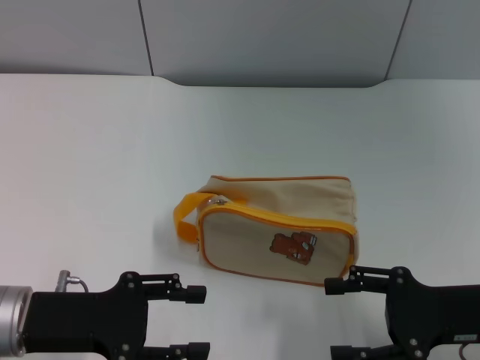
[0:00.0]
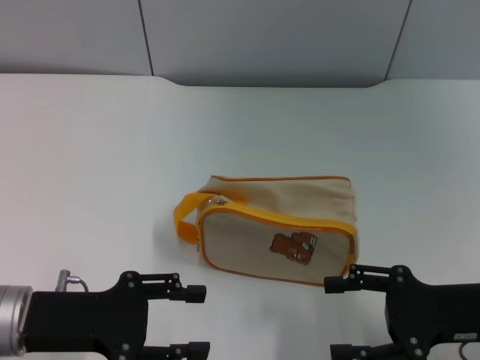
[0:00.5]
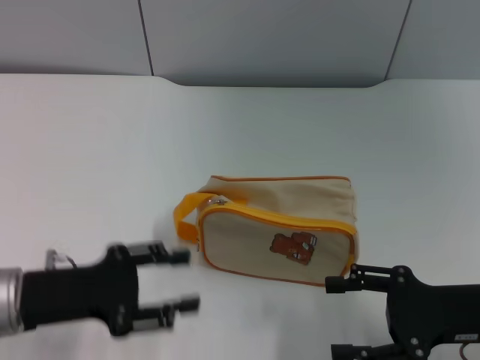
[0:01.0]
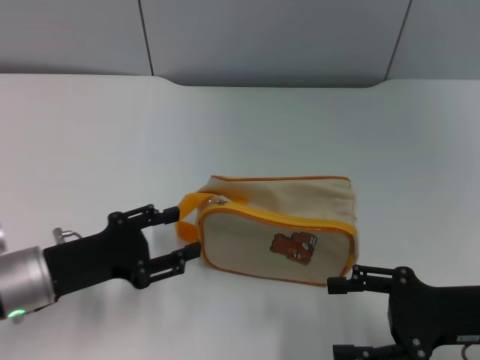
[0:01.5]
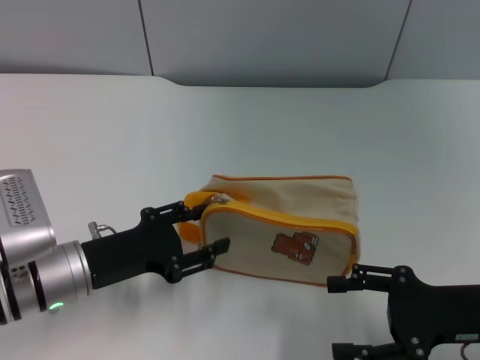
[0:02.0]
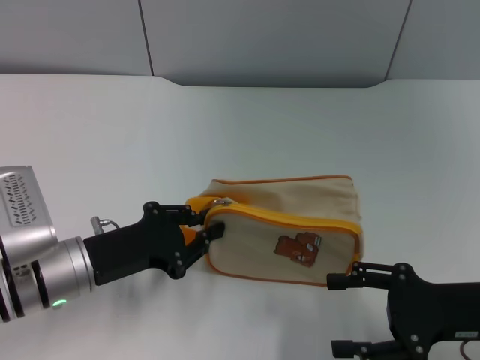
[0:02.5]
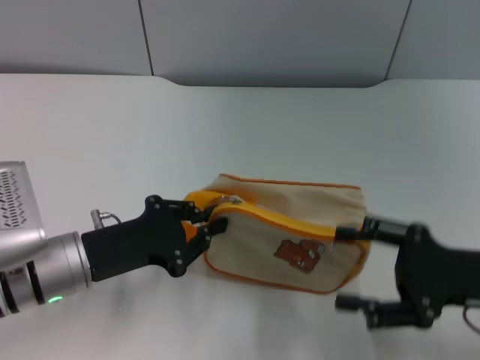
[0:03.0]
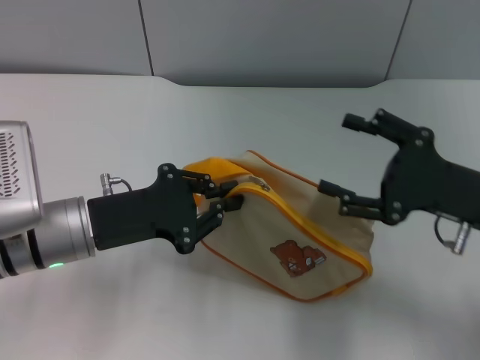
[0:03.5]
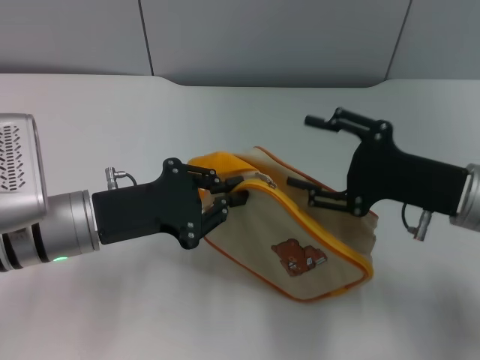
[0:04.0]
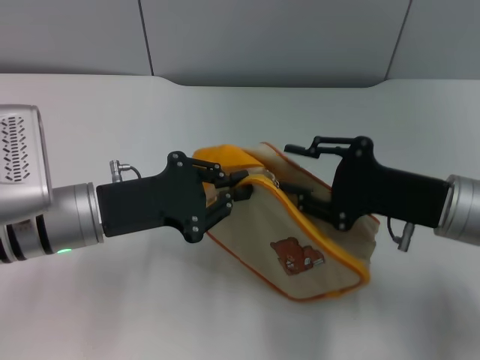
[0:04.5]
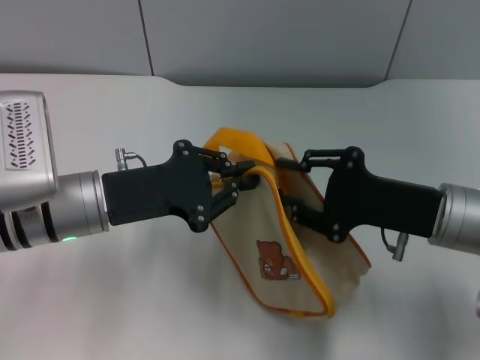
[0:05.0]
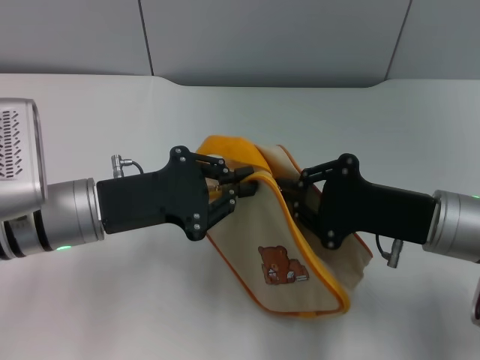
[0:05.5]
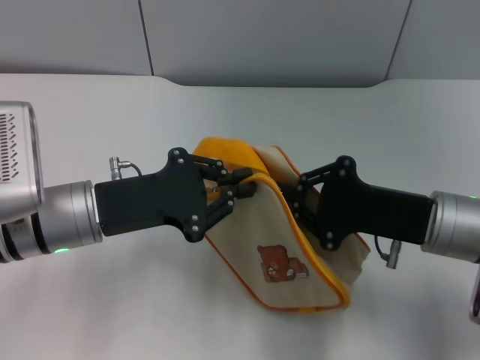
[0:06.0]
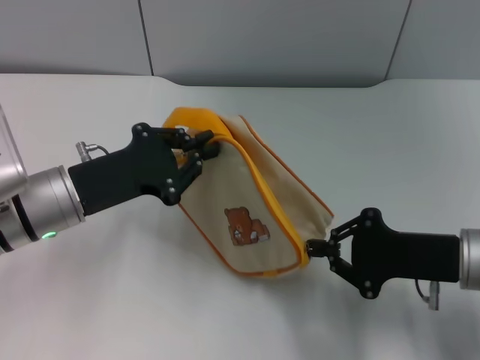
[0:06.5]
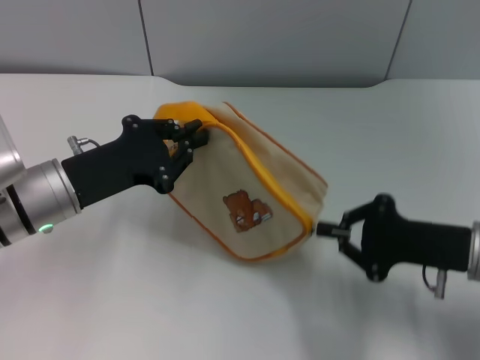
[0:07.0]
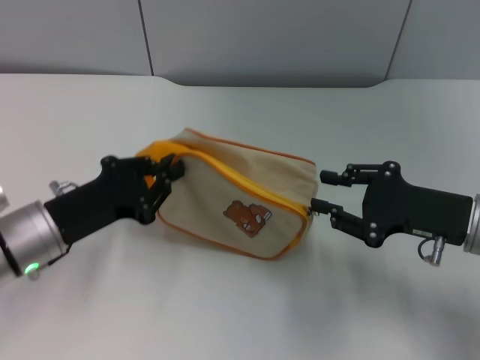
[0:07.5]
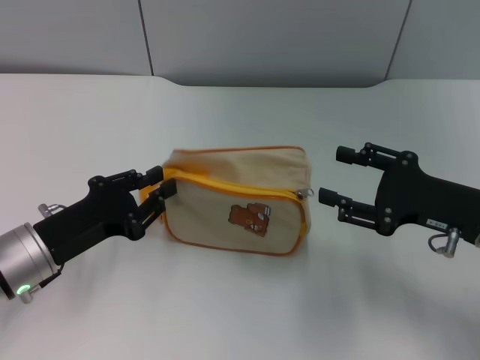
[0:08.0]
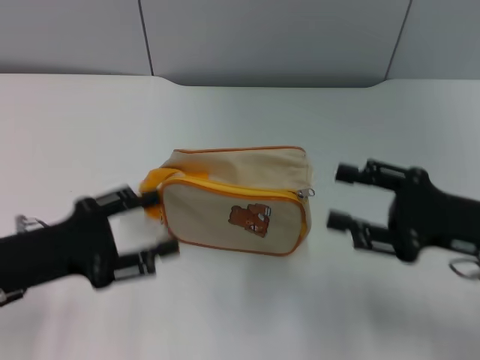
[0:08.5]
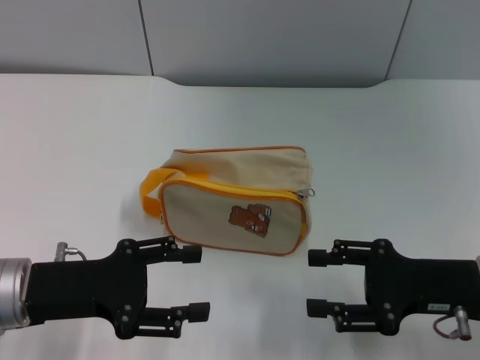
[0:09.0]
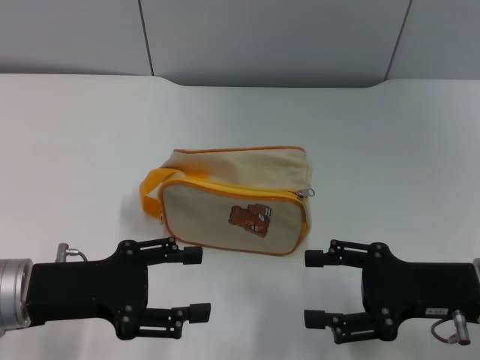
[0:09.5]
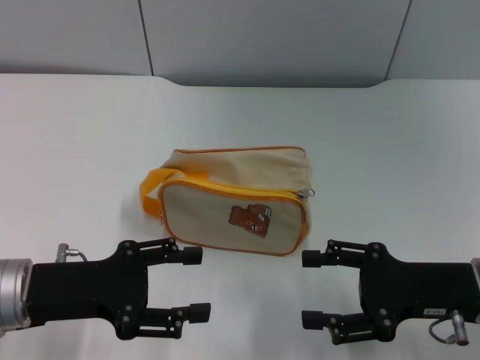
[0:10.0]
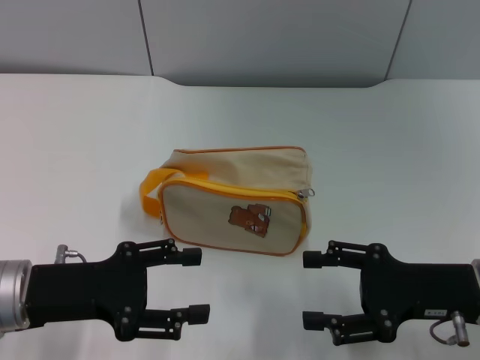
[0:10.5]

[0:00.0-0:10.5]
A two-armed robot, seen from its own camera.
Step, 0:00.0 to 0:03.5: Pick up the bag with left gripper.
Step, 0:04.0 to 0:07.5: Unzip the zipper of bag with right gripper.
Step, 0:08.0 to 0:08.5: Place the bag on the table with left gripper.
0:00.0 to 0:02.0: The left gripper shifts by about 5 cm.
0:02.0 to 0:04.0: The left gripper changes place by roughly 5 cm, and closes up. The right gripper goes approximately 5 cm forward.
0:04.0 to 0:06.5: The right gripper closes its fingers.
0:06.5 to 0:08.5: The left gripper moves backward and to the left, some 10 cm, and opens up, while the right gripper opens its fingers.

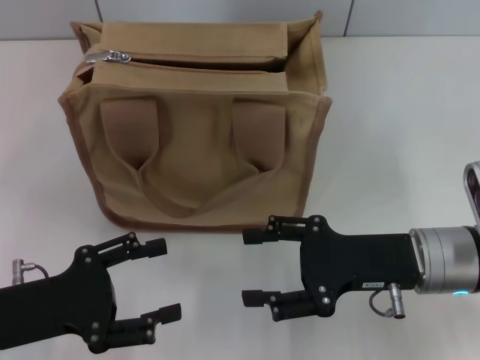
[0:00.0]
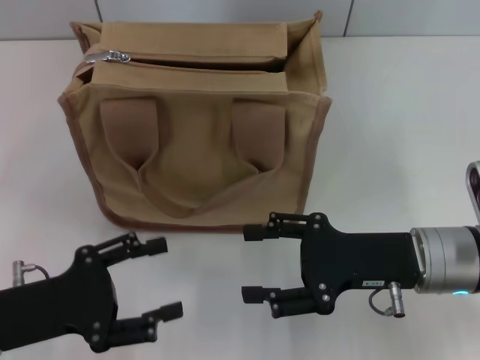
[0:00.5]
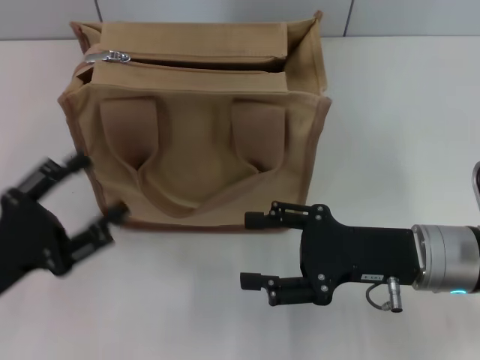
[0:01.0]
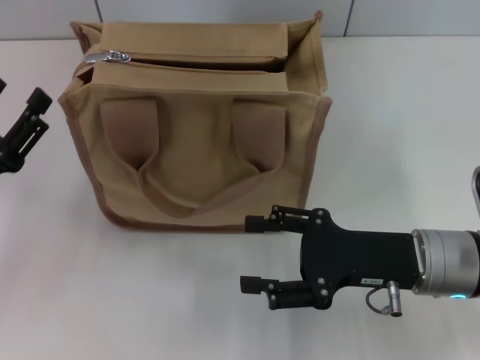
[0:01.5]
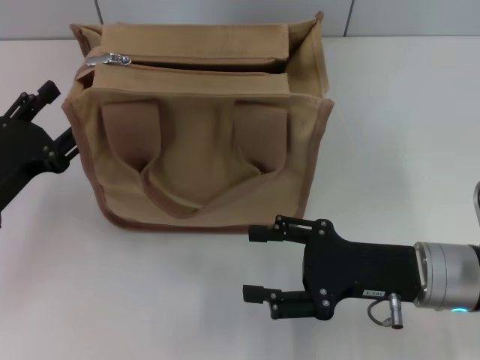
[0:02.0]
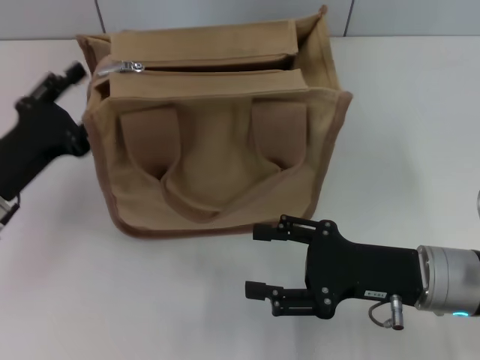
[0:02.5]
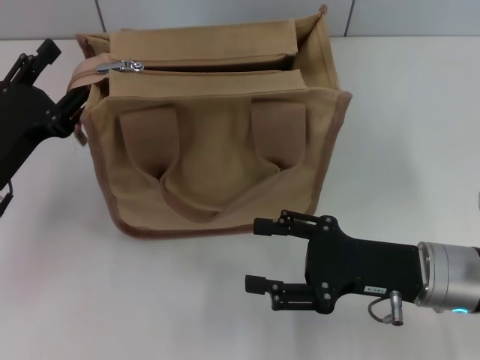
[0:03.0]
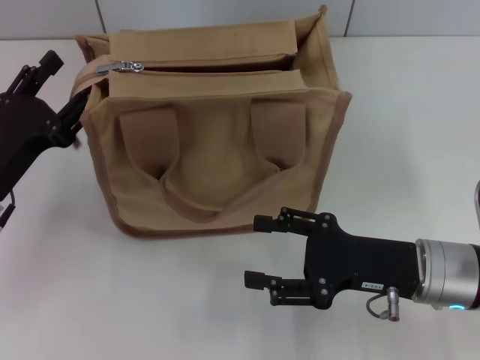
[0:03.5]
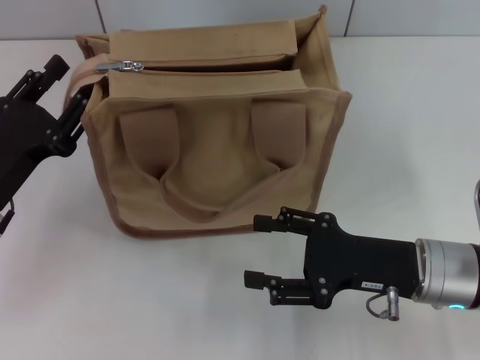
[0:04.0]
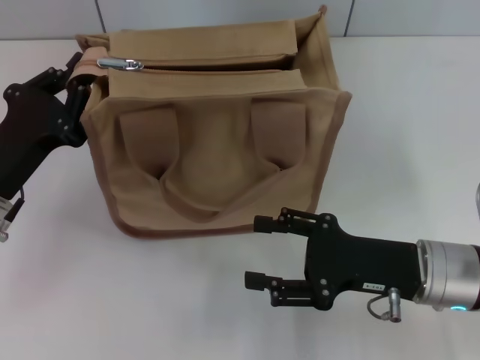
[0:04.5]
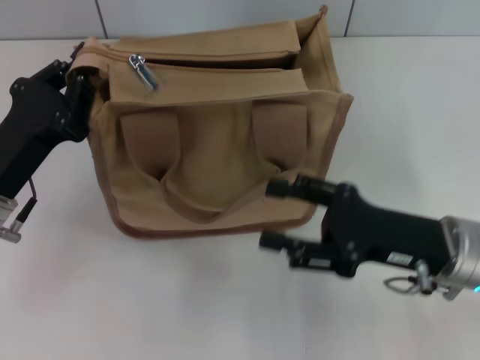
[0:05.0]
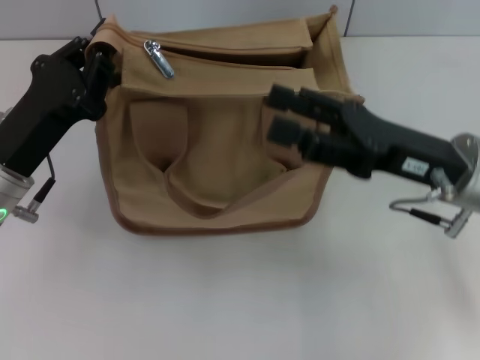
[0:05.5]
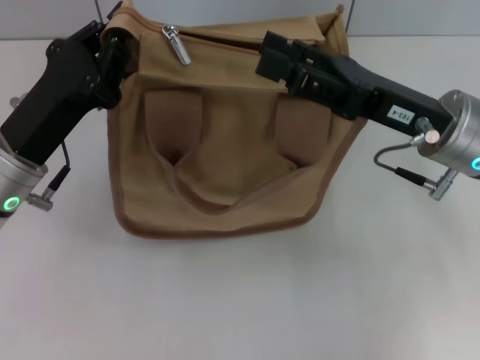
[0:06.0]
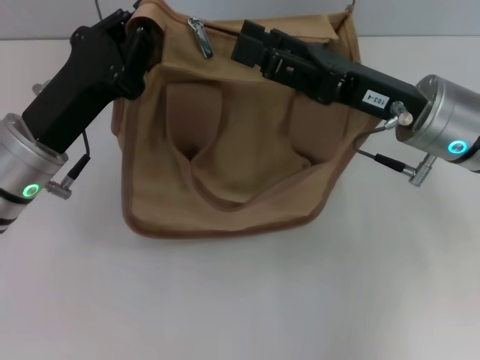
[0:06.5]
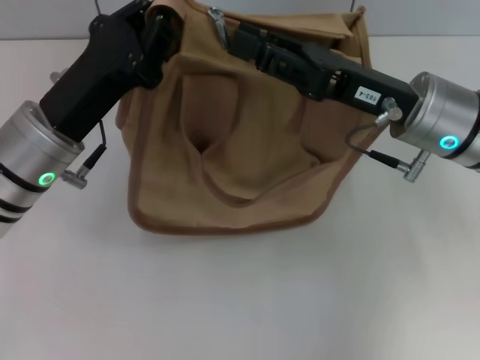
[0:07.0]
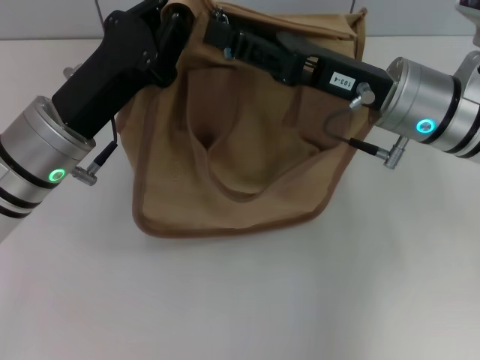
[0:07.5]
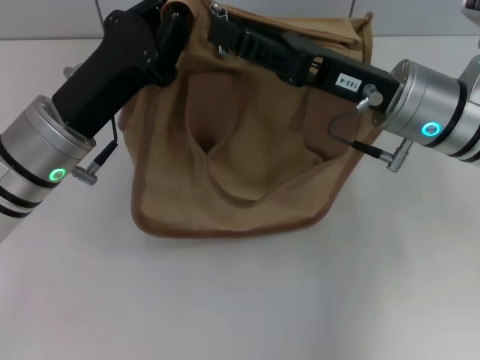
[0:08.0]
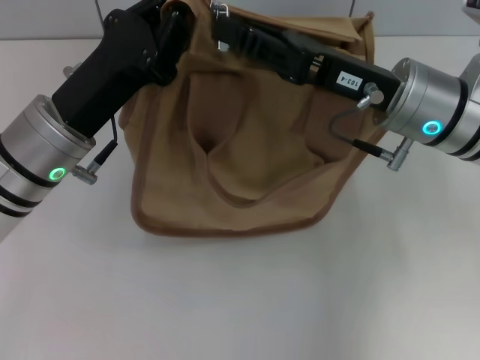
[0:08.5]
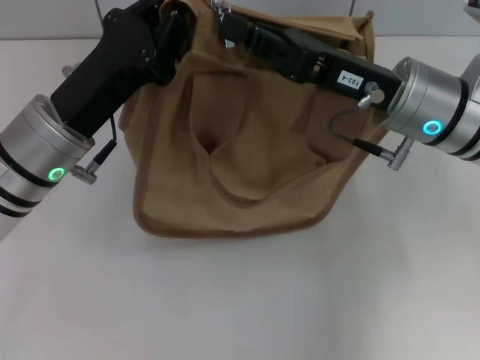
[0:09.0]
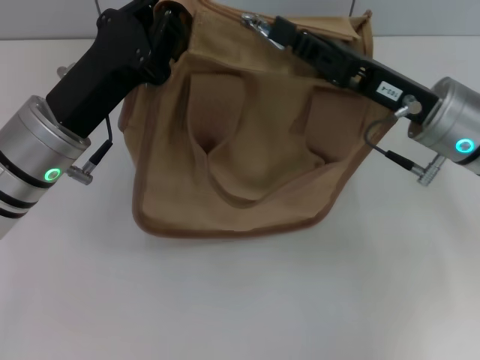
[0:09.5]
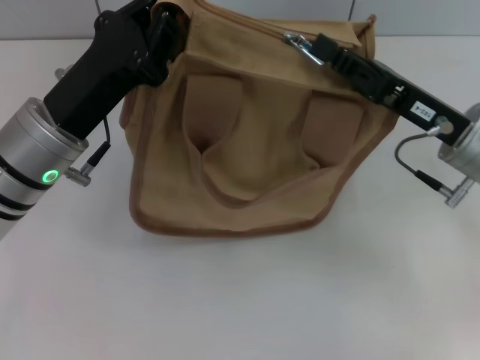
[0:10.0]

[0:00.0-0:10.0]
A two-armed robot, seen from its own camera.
0:00.0 to 0:02.0: The left gripper travels forward by about 5 cm.
0:02.0 to 0:04.0: The grippers move only a little.
0:04.0 to 0:06.0: The right gripper goes about 10 cm upward and forward. The left gripper shifts by roughly 5 cm, and closes up.
0:06.0 to 0:08.0: The right gripper closes.
0:08.0 to 0:10.0: The right gripper shifts some 5 cm to the right, and closes.

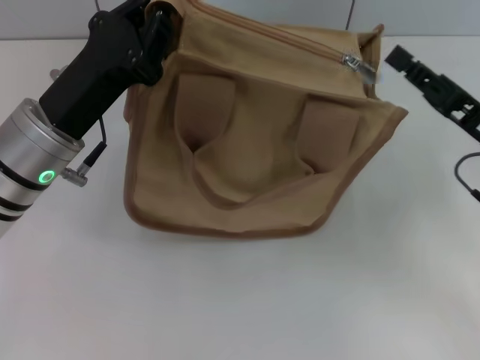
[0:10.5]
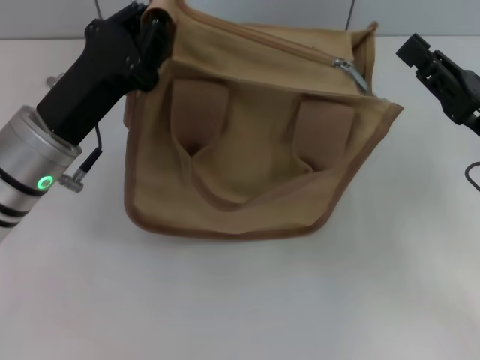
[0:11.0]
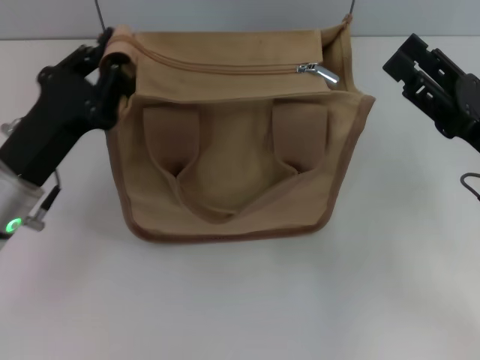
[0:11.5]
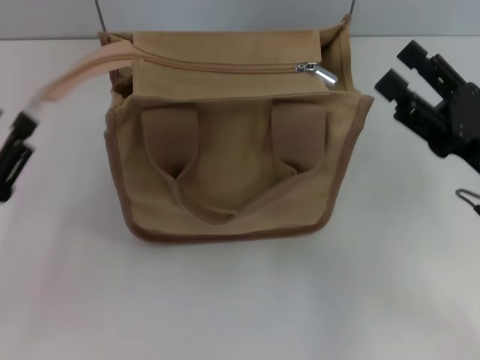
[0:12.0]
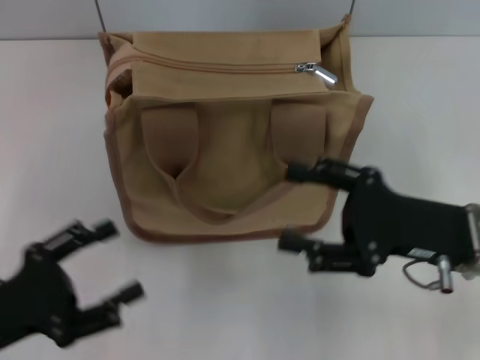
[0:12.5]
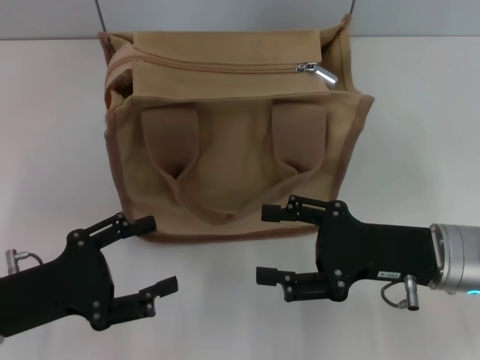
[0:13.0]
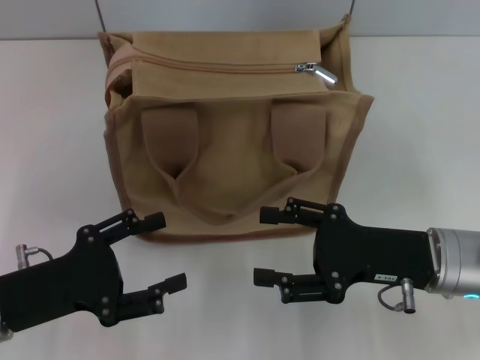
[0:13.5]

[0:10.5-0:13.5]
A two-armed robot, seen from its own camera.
Step, 0:11.0 to 0:11.5: Grab the zipper with your left hand.
0:10.5 to 0:12.0: The left gripper shifts roughly 15 cm backward, to the left and downward, and opens up. The right gripper opens up.
0:12.0 to 0:13.5: The right gripper shifts approximately 5 cm to the left, while the left gripper opens up.
